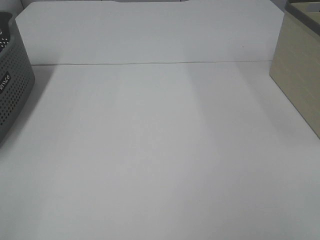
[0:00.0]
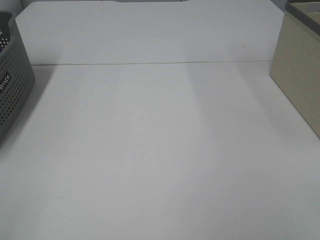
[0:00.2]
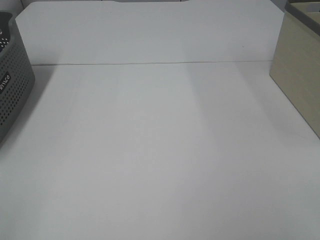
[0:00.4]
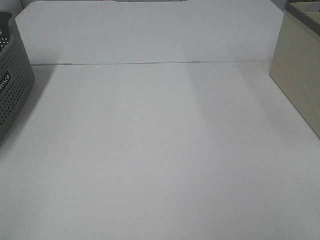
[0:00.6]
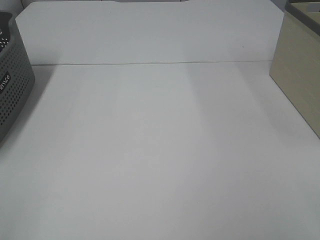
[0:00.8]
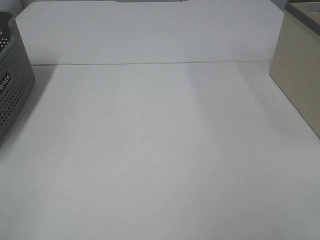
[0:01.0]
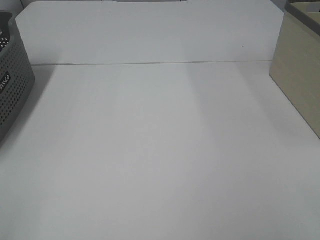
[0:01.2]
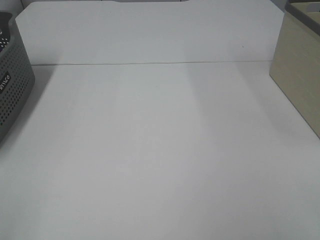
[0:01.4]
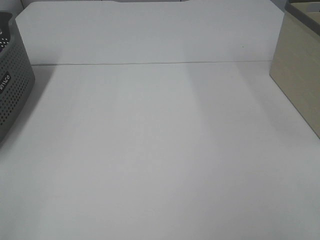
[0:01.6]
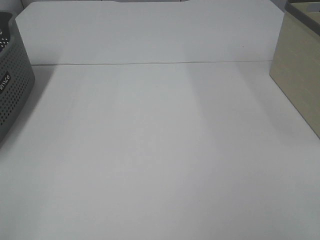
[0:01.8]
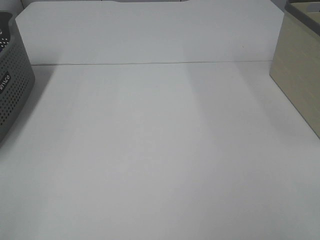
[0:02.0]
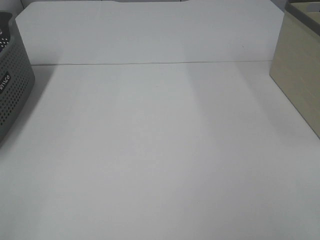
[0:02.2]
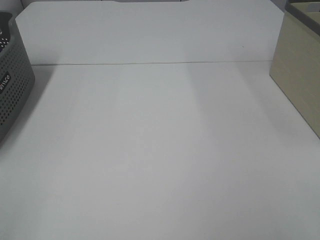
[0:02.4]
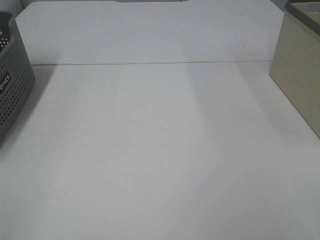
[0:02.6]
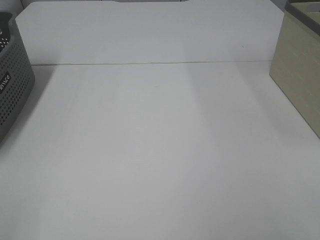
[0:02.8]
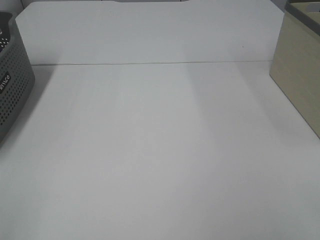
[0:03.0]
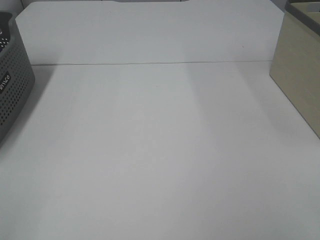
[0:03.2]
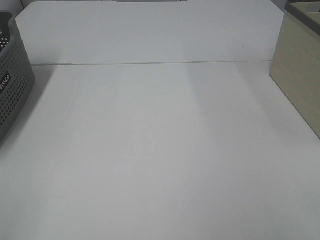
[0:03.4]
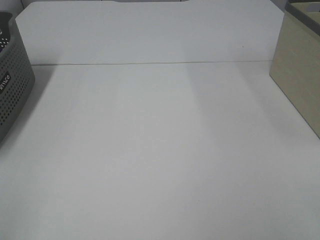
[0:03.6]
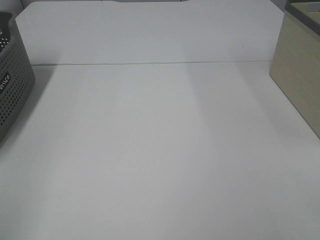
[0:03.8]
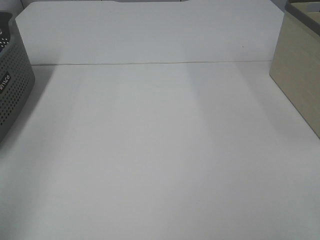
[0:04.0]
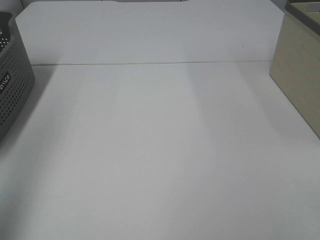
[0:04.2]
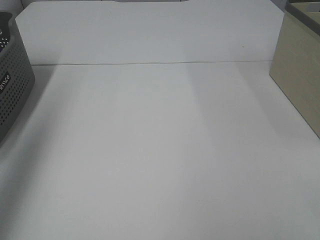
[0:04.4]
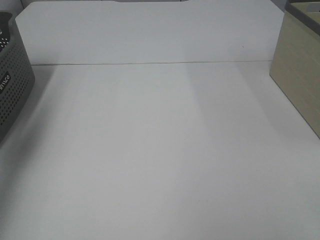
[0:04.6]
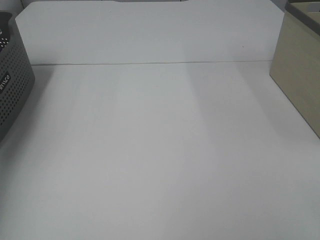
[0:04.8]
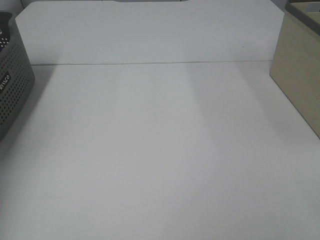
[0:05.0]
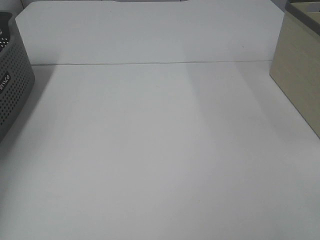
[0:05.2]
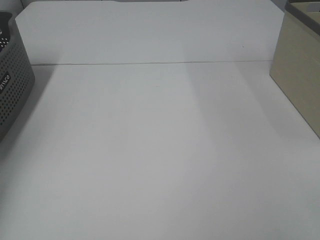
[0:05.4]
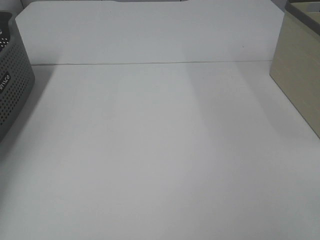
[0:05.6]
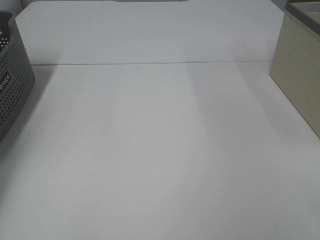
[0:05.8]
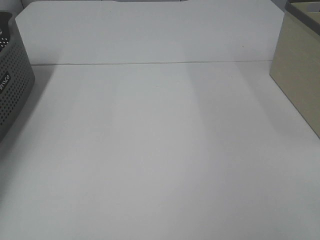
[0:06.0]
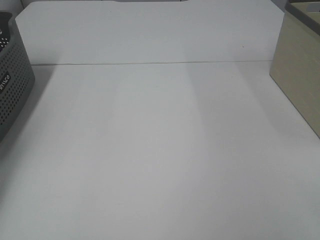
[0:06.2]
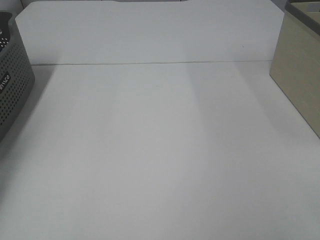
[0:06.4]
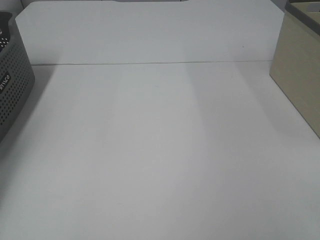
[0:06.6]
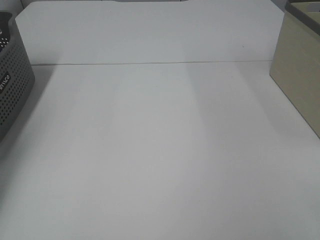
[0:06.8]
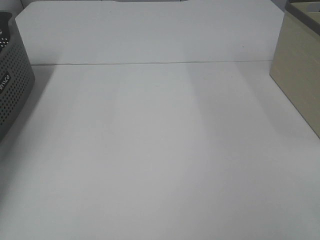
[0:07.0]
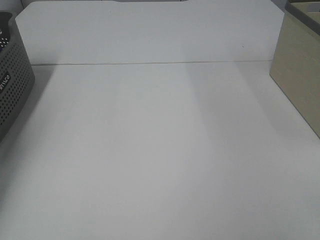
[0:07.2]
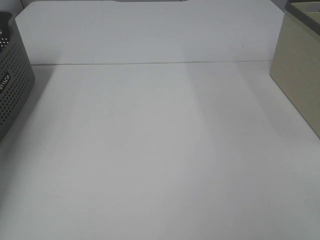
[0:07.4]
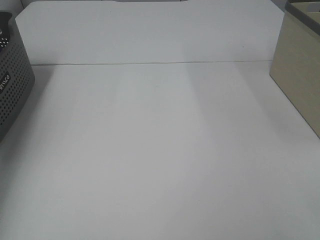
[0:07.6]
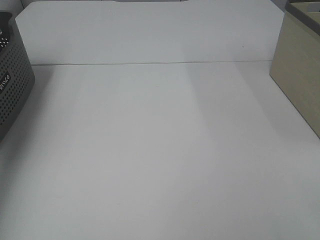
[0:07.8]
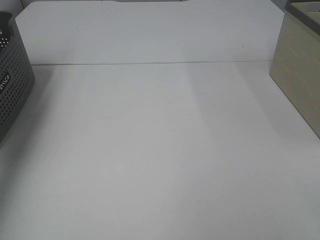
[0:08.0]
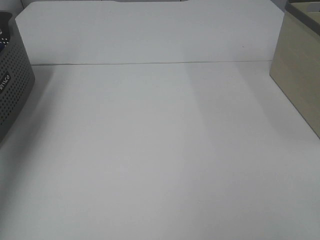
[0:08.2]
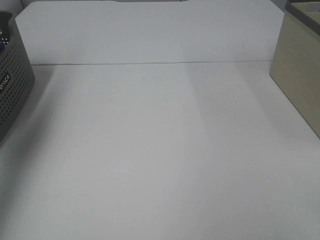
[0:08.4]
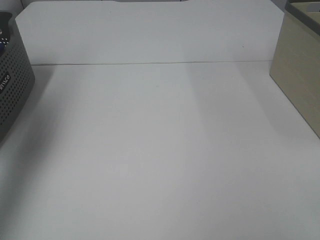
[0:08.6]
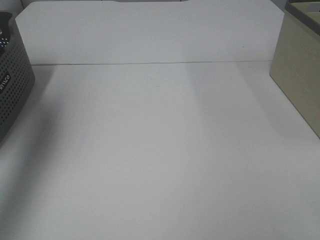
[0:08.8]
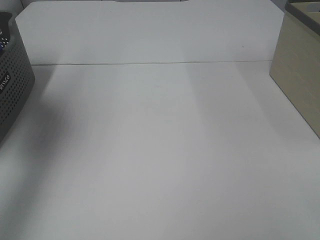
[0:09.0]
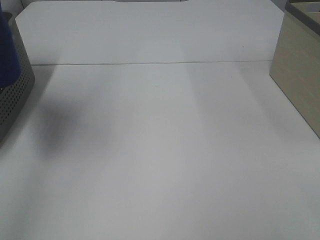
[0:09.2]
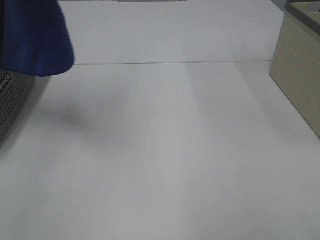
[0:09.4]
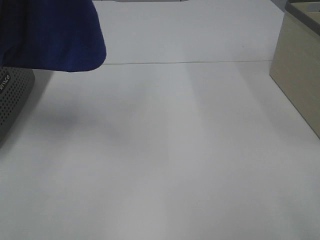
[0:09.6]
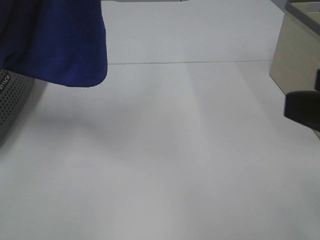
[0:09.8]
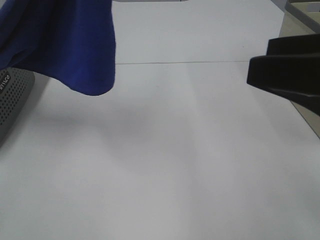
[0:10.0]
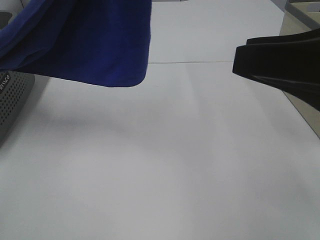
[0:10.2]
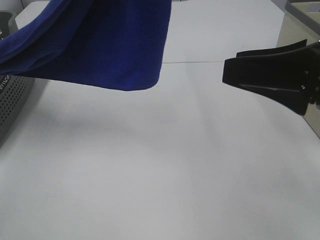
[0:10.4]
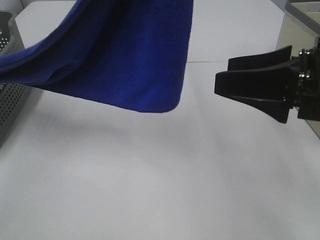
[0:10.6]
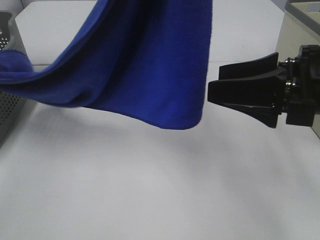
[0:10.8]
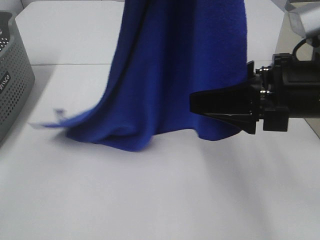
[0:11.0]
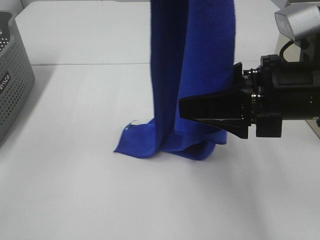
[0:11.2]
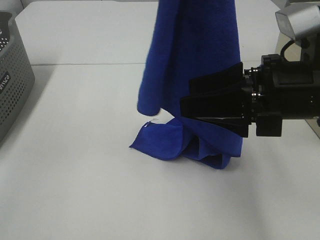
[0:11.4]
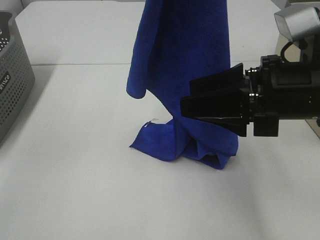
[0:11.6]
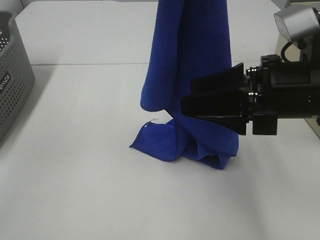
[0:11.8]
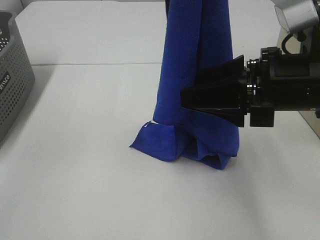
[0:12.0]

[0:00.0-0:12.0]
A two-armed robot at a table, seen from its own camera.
Task of the whole recording: Remove the towel and place it.
0:01.6 to 0:03.0: Neither gripper changes place.
0:03.0 to 0:04.4: The left gripper heads forward and upward, covering about 25 cm.
0:04.4 to 0:06.0: The left gripper travels forward and downward by some 35 cm.
0:07.6 to 0:09.0: The left gripper heads upward, backward and to the right, covering approximately 30 cm.
0:09.0 to 0:10.4: The left gripper goes about 20 cm to the right. The right gripper goes roughly 20 cm forward.
0:10.4 to 0:12.0: The right gripper changes place by about 5 cm.

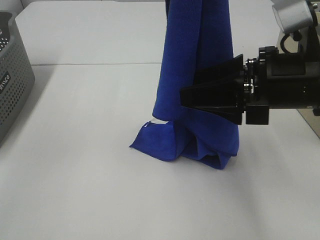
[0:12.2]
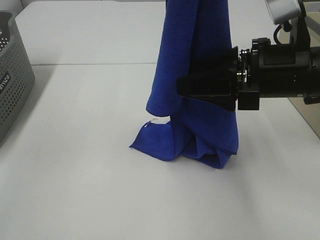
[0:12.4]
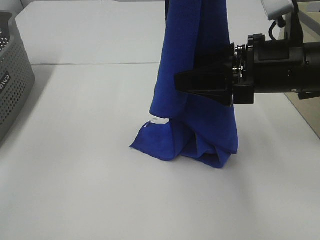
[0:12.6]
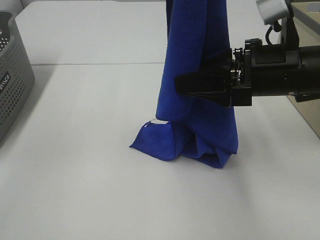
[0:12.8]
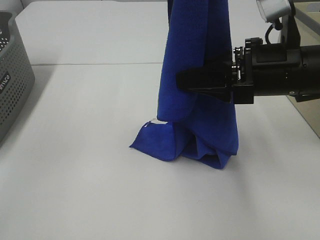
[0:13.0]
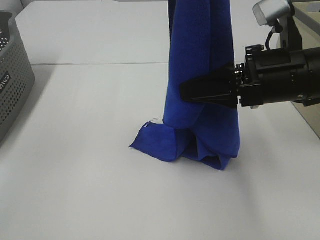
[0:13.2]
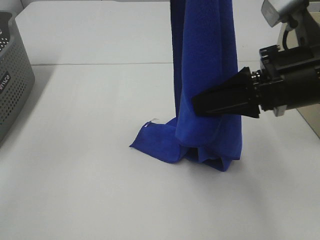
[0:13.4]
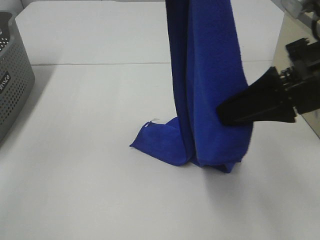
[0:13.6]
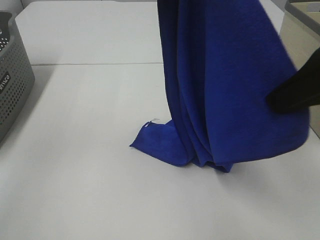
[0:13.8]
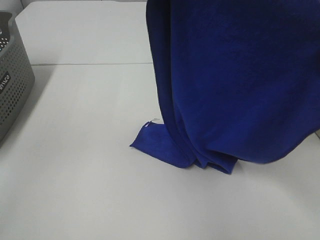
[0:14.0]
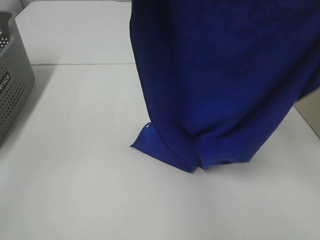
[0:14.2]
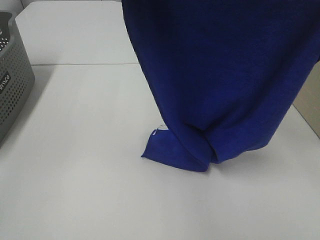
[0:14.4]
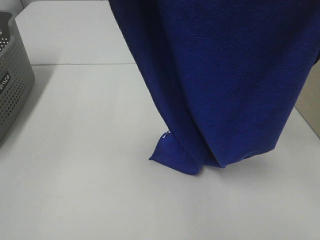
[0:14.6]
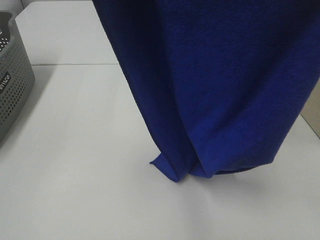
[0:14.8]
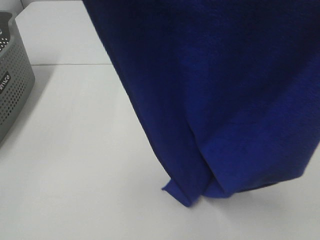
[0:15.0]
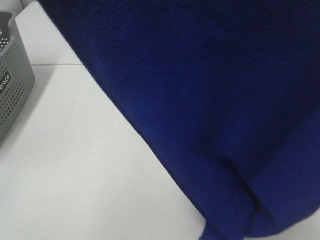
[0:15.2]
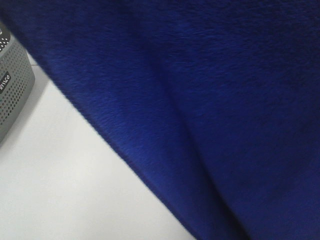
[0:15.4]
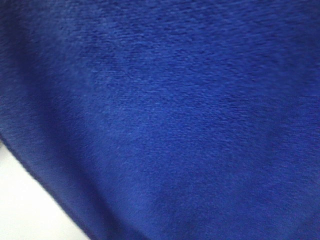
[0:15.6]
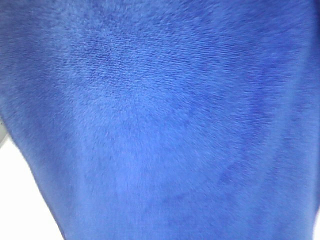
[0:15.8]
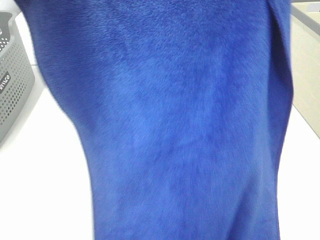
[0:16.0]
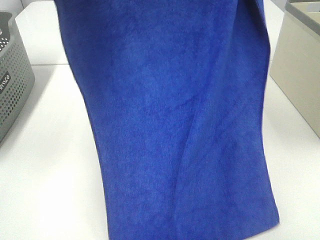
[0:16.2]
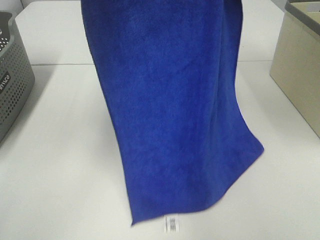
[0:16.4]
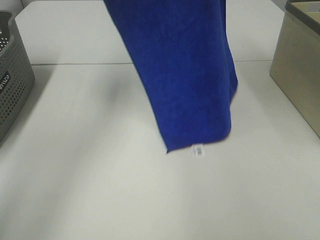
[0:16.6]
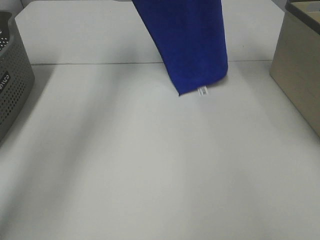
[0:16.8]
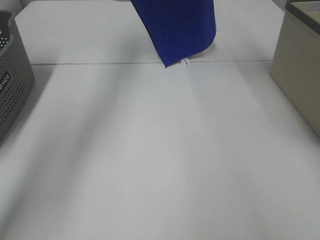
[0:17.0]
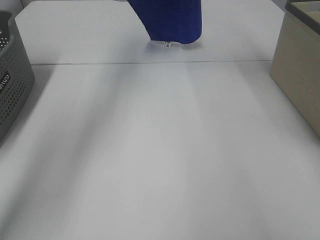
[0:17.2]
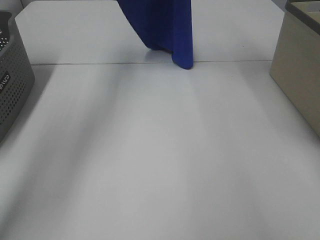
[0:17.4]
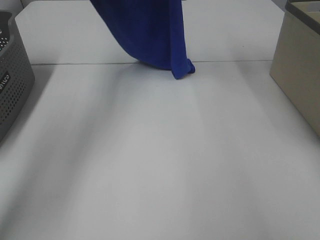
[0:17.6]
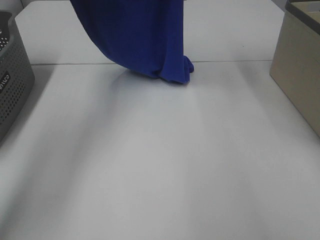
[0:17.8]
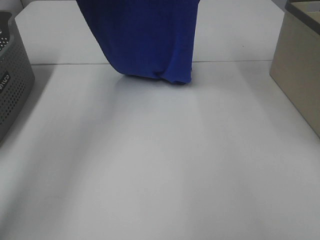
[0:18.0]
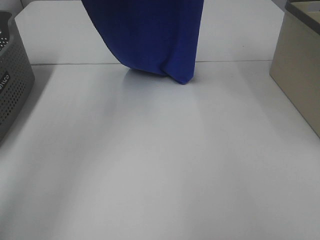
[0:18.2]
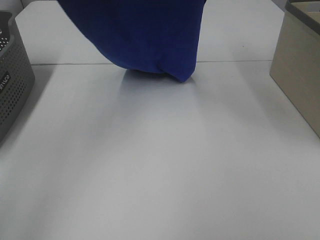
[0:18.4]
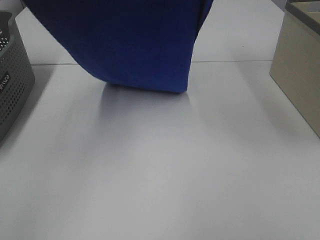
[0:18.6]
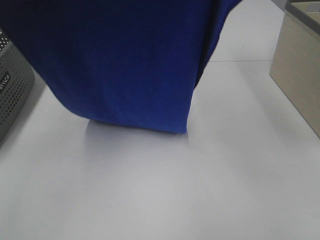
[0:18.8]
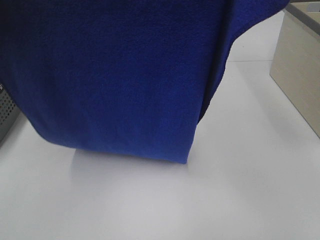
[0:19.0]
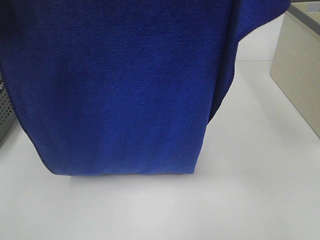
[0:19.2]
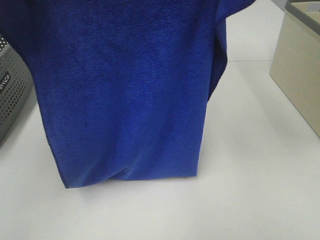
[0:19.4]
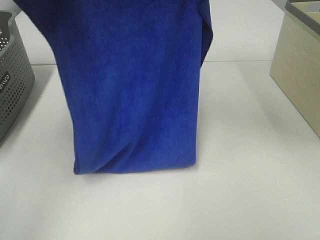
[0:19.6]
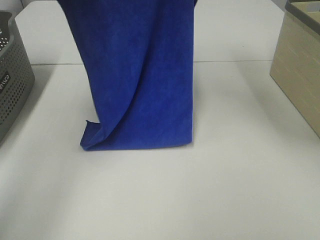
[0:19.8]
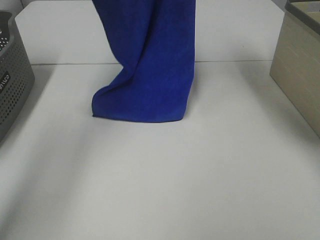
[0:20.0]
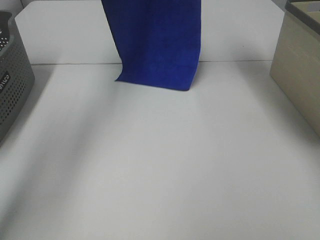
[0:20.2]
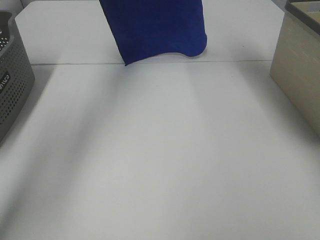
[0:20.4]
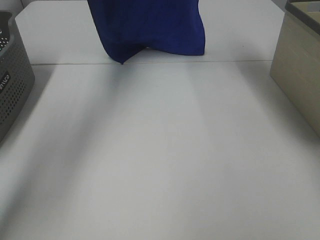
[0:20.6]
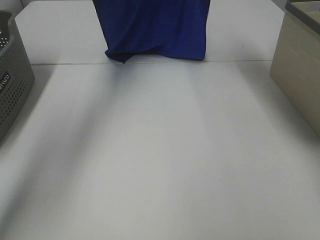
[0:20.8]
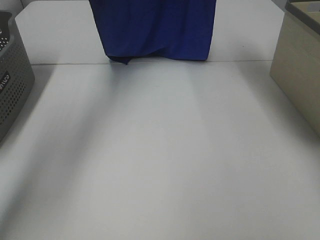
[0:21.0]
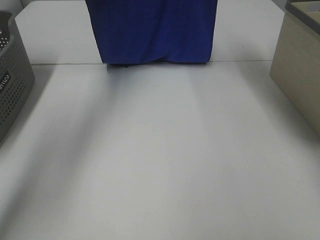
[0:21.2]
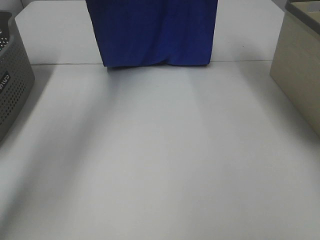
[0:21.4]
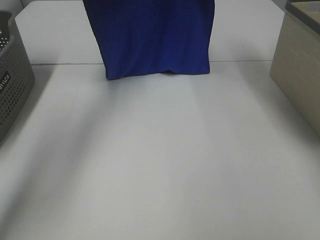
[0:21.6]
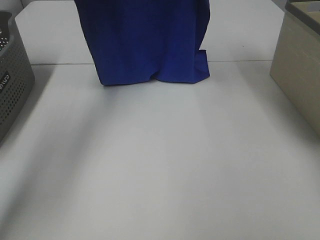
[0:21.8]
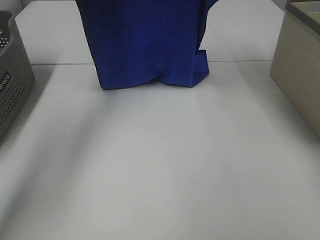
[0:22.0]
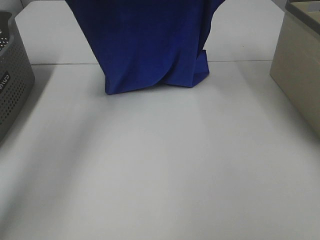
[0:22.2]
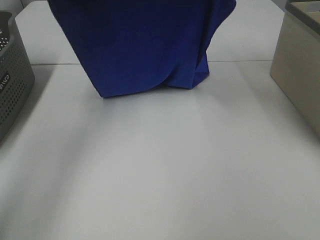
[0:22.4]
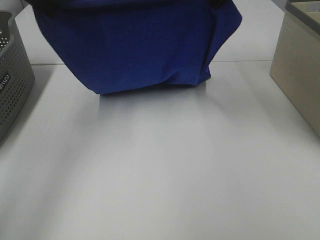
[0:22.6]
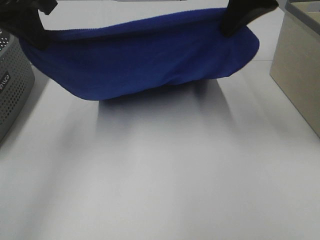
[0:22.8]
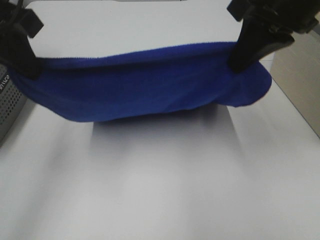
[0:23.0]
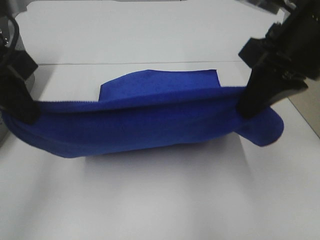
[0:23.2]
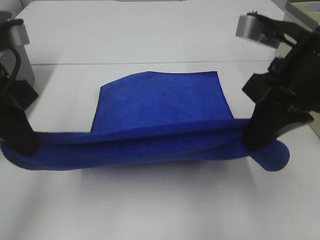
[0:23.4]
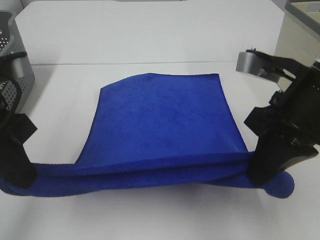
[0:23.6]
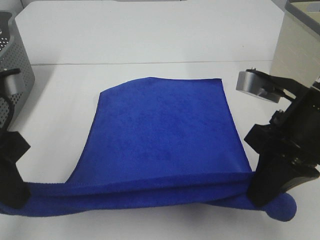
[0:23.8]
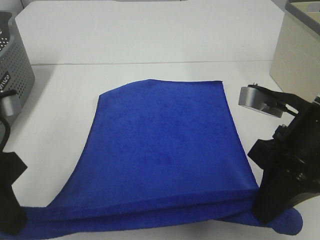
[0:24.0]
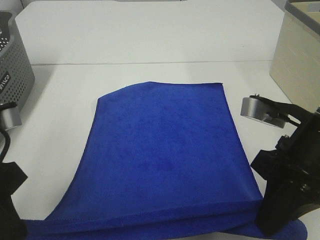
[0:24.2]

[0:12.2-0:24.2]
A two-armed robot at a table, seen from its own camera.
Task of the whole recording: Remove the towel and place it.
Step, 0:12.8 to 0:20.6: Left hand: spread the blue towel flat on the table.
Step, 0:12.8 to 0:20.6: Right hand: spread the blue towel flat on the table.
0:12.2 to 0:13.8: The right gripper is displaced upward by some 10 cm, and closes up.
0:13.8 to 0:15.2: The left gripper heads backward and to the left, covering about 20 cm. Meanwhile the right gripper travels upward and backward by roughly 25 cm.
0:15.2 to 0:16.6: The grippers both shift forward by some 35 cm.
0:16.6 to 0:18.2: The left gripper goes some 5 cm upward, and goes forward and returns, some 5 cm each way. The right gripper moves roughly 5 cm forward and comes back.
0:18.2 to 0:19.8: The right gripper heads to the left, covering about 5 cm, and goes backward and returns, approximately 20 cm each way; the left gripper travels backward and back again, approximately 20 cm each way.
0:19.8 to 0:21.2: Both grippers move forward, approximately 10 cm.
0:21.2 to 0:22.6: The grippers both shift backward and downward by some 15 cm.
0:22.6 to 0:24.2: The grippers both shift backward and downward by approximately 25 cm.
